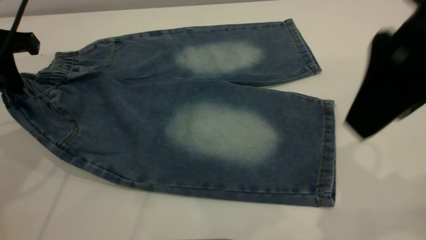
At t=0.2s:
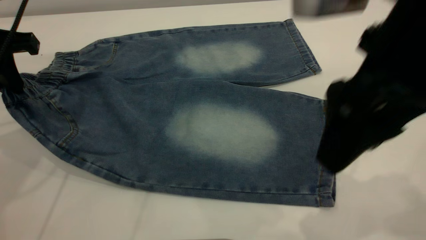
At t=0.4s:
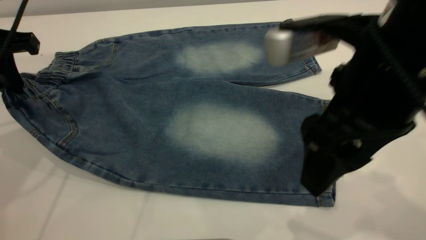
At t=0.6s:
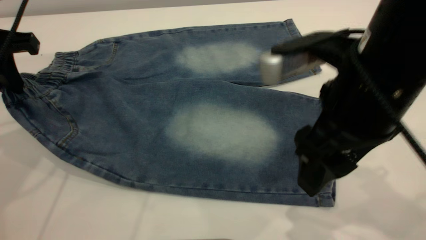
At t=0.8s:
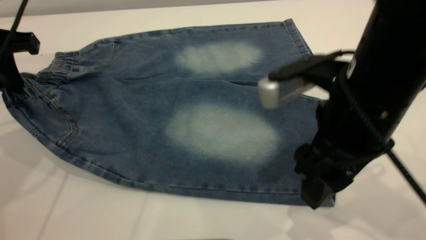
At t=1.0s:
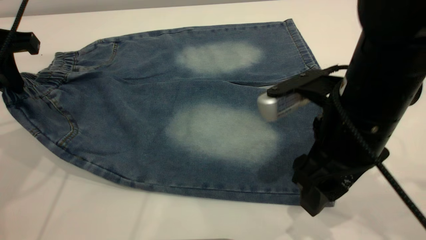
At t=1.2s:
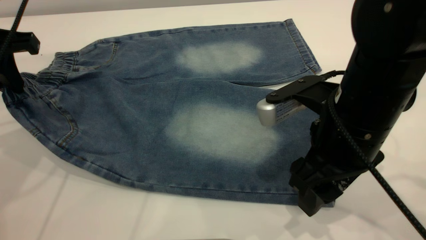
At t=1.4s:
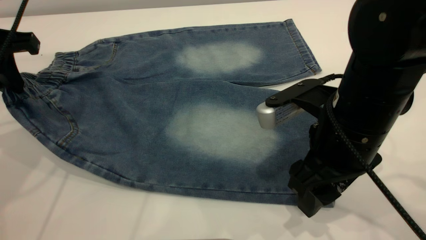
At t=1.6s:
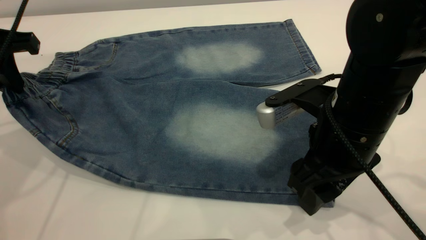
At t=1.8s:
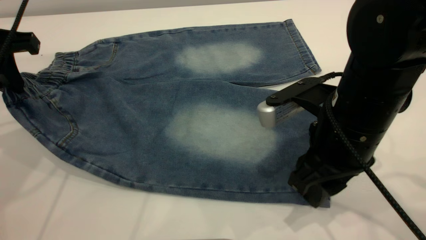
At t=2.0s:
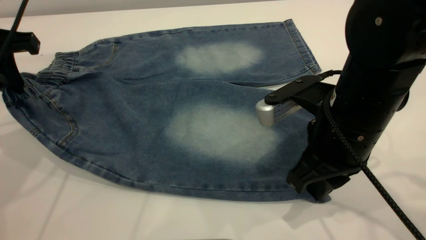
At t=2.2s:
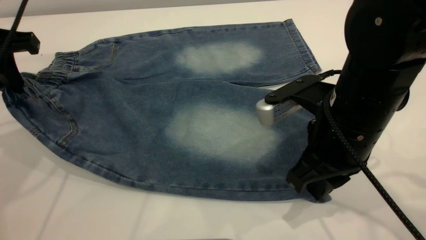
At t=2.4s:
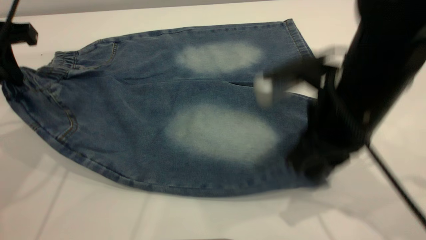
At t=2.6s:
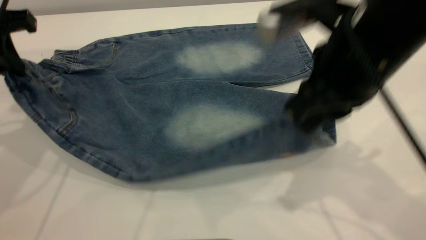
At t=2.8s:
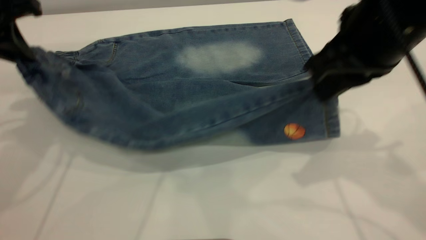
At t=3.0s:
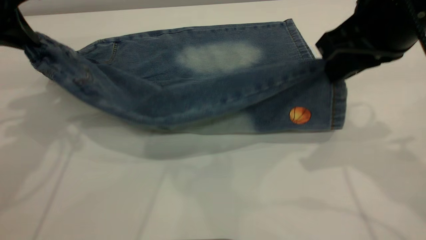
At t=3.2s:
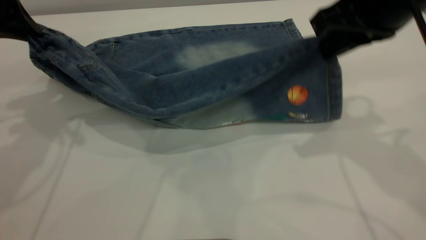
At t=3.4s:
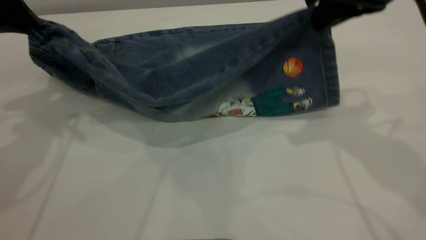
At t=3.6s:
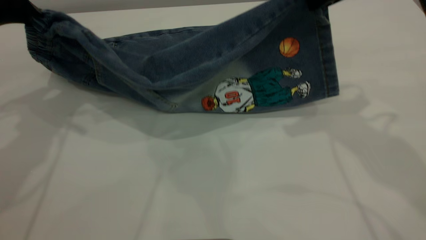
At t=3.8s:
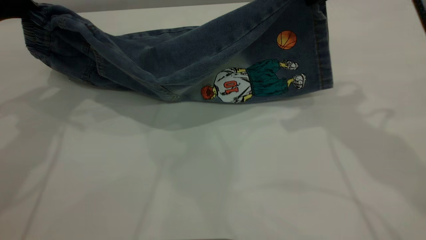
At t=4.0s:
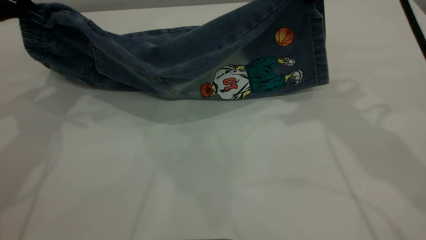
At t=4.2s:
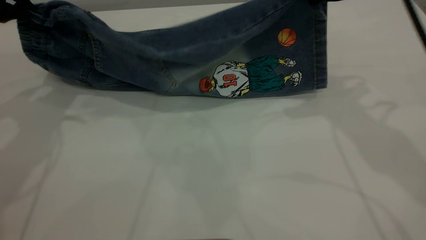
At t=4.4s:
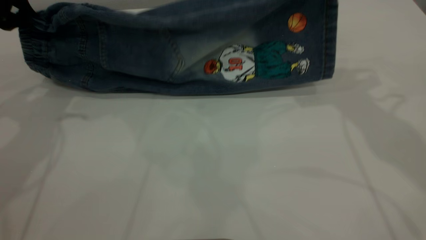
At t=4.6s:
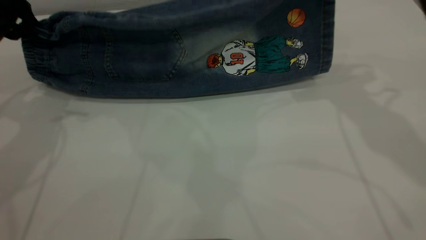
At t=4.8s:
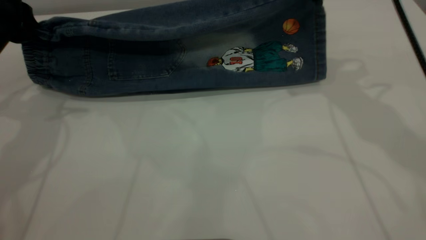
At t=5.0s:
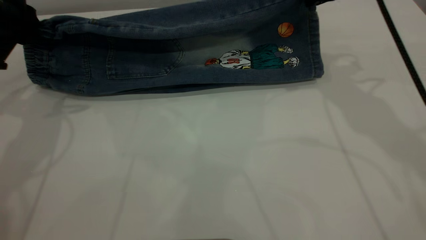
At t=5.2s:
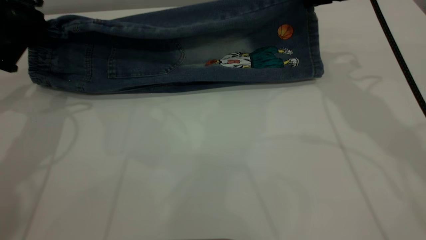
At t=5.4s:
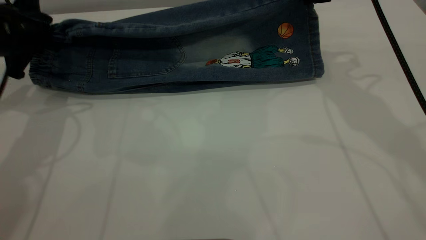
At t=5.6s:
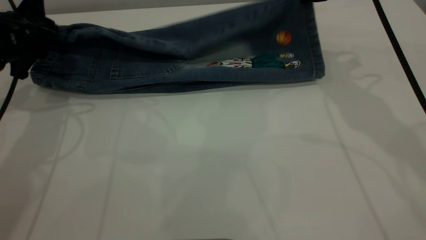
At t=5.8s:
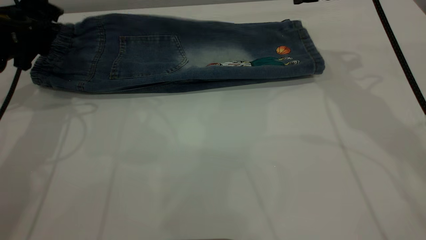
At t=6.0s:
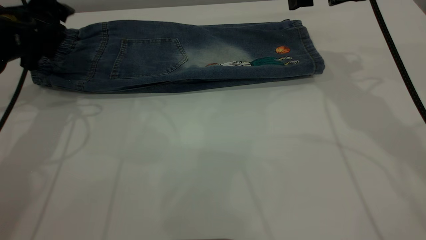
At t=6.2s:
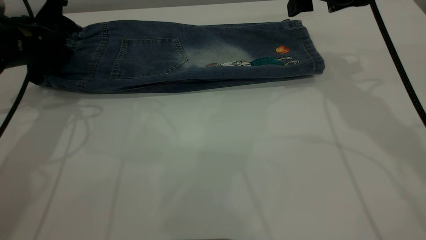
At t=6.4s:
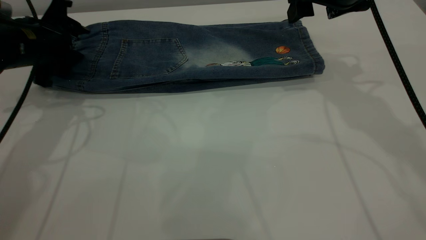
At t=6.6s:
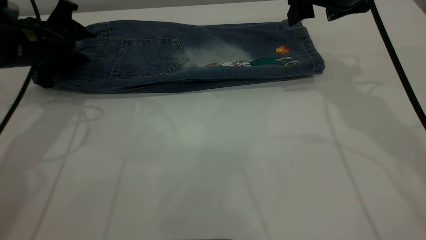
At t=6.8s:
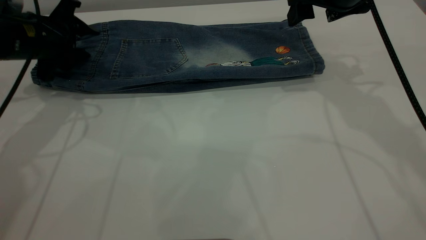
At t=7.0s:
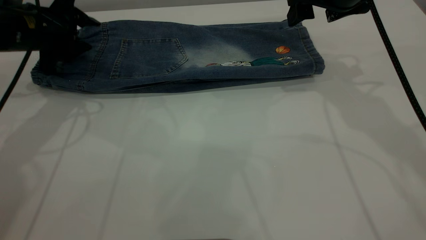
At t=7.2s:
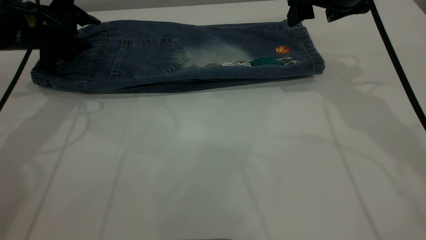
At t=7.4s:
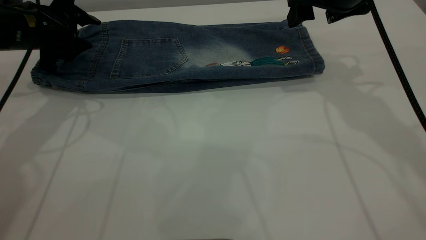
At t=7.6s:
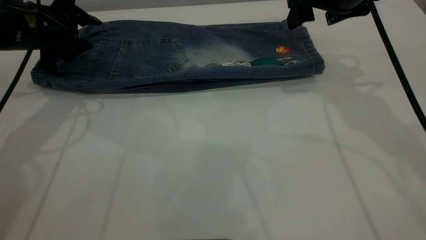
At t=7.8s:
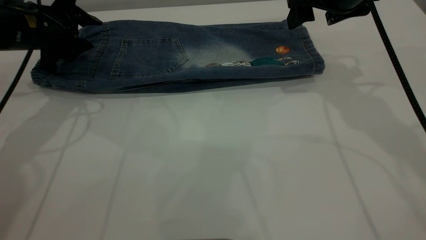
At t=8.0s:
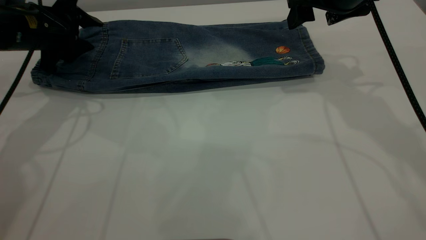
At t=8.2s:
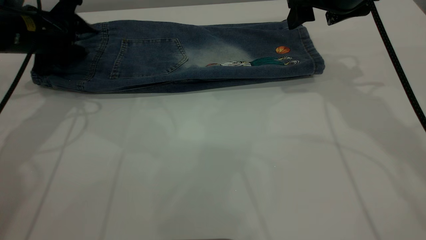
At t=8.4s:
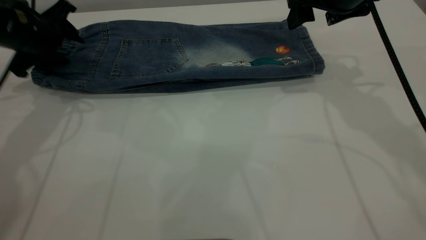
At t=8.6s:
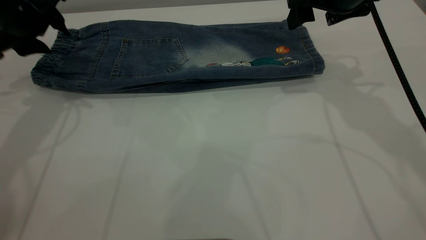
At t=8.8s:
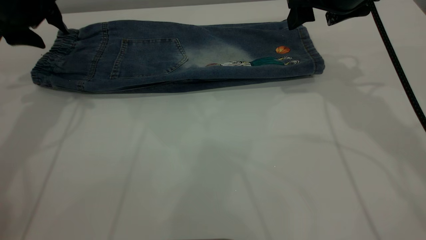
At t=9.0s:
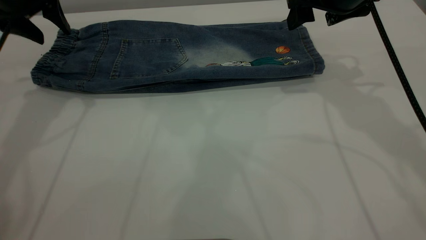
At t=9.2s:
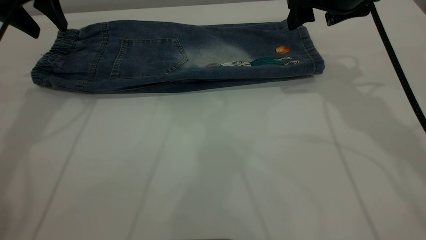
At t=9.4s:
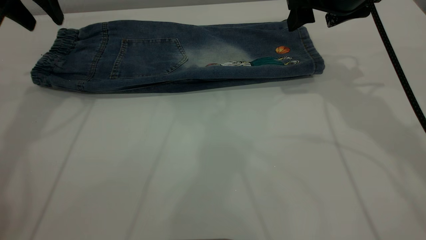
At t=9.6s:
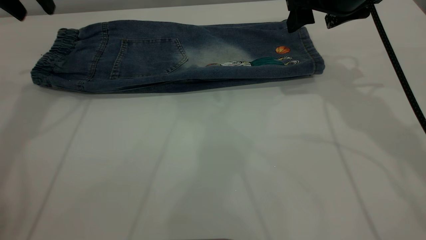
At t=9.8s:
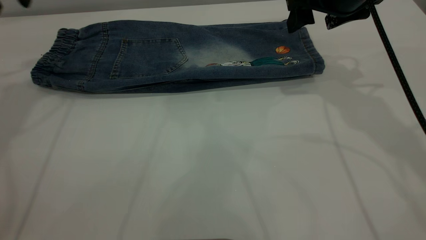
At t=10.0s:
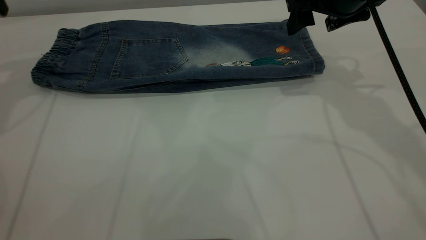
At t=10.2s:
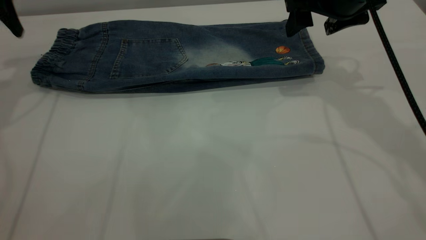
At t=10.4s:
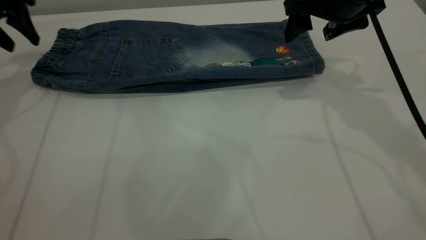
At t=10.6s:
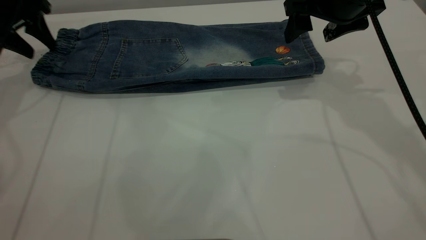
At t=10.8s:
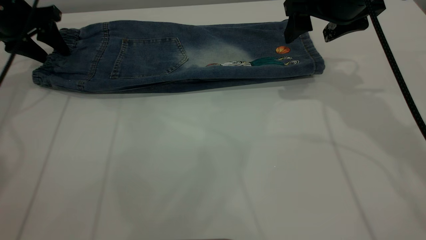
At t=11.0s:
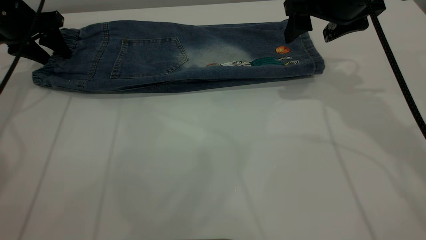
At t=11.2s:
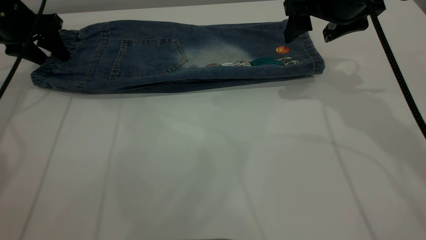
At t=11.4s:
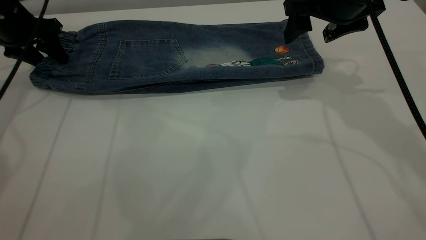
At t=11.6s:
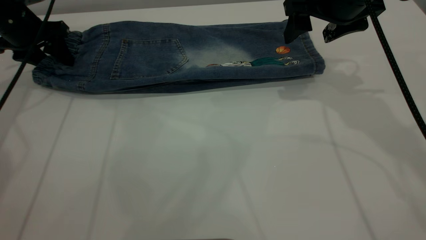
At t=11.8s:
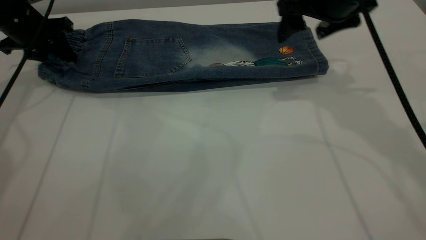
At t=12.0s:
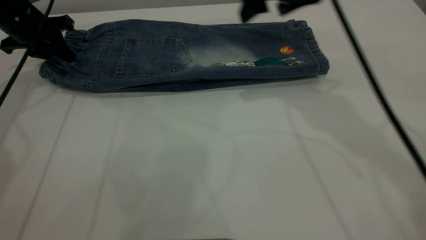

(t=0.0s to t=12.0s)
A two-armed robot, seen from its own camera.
Step, t=0.0s - t=8.4s: Fold the bottom of the pants upward.
t=0.0s - t=1.6s: The right gripper heads downward, covering some 15 cm.
t=1.6s - t=3.0s: The right gripper heads upward and to the right, covering approximately 10 cm, and closes.
t=3.0s - t=4.4s: The right gripper heads forward, covering roughly 10 cm.
t=4.4s - t=6.0s: The left gripper shifts some 10 cm downward, and opens its fingers; the right gripper shifts about 5 cm downward, and opens its fingers.
t=6.0s - t=7.6s: The grippers move only a little.
t=7.6s - t=9.0s: The left gripper shifts some 10 cm upward.
t=9.0s - t=10.4s: The left gripper shifts about 10 cm to the left, and goes upward and returns, approximately 5 cm each way.
t=10.4s - t=12.0s: The right gripper travels to the left by about 5 cm; the left gripper moves downward, approximately 5 cm, and closes.

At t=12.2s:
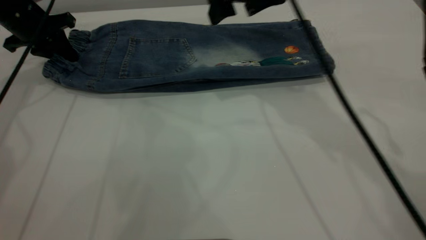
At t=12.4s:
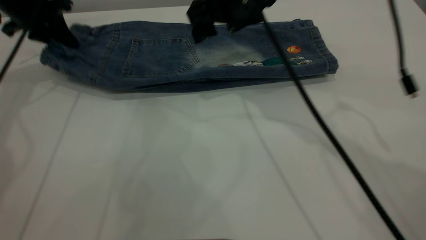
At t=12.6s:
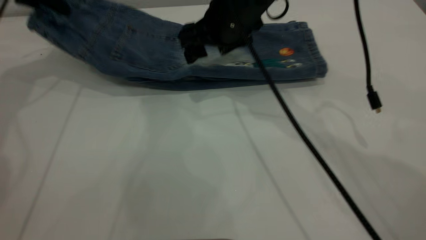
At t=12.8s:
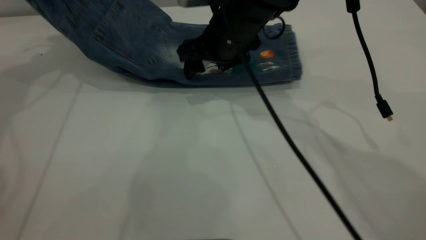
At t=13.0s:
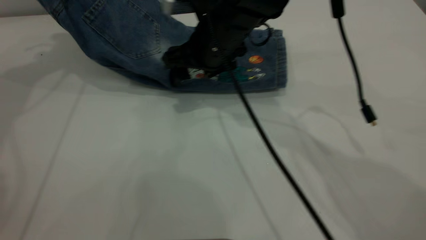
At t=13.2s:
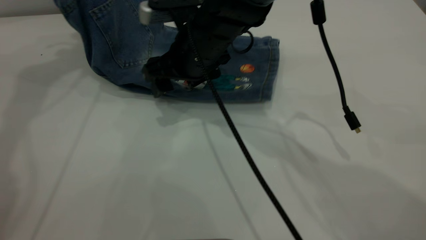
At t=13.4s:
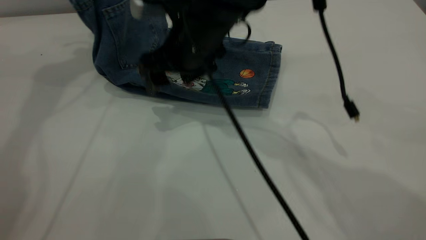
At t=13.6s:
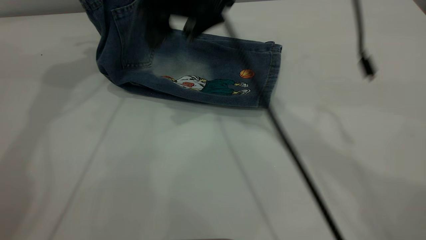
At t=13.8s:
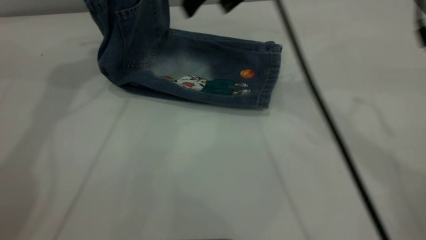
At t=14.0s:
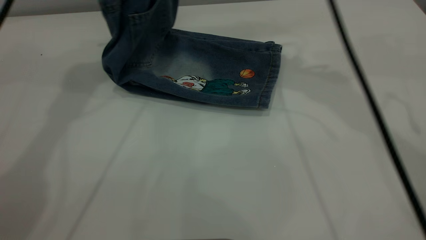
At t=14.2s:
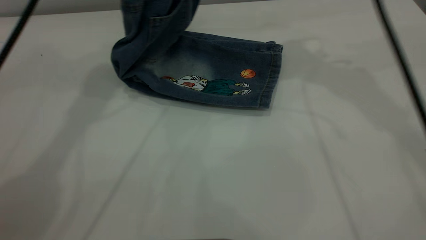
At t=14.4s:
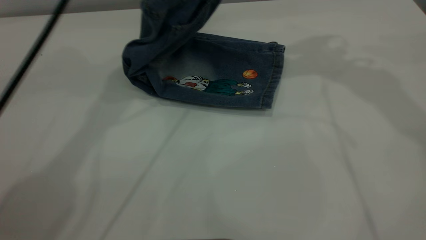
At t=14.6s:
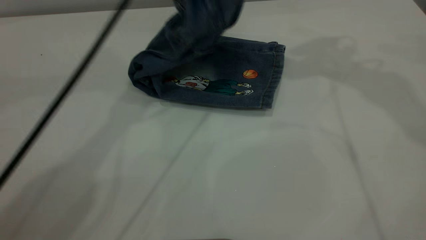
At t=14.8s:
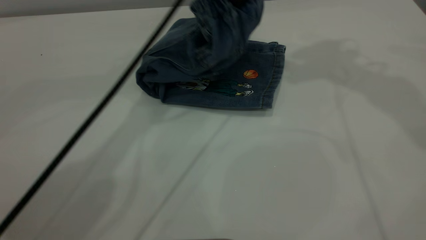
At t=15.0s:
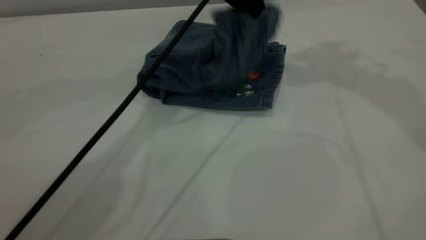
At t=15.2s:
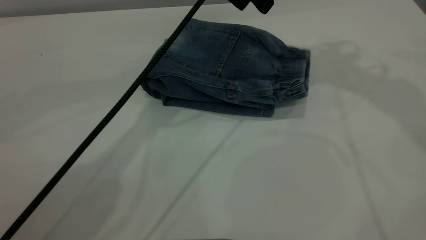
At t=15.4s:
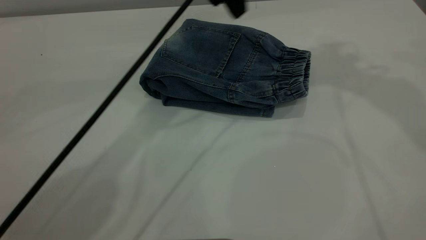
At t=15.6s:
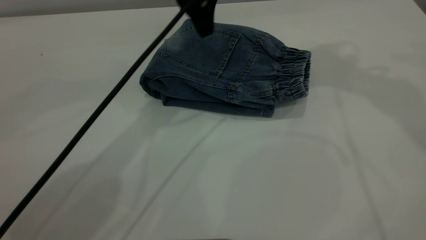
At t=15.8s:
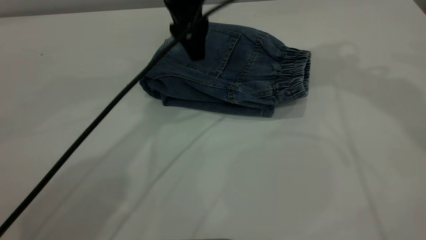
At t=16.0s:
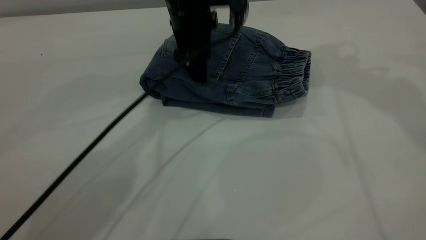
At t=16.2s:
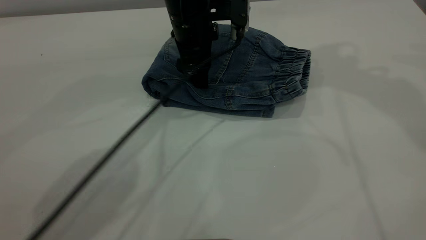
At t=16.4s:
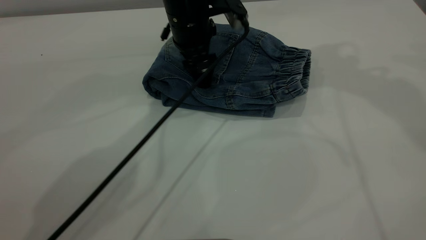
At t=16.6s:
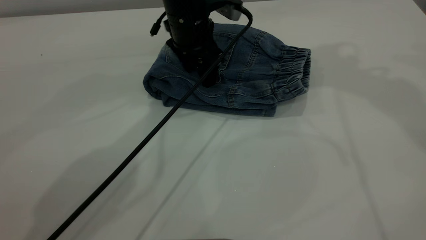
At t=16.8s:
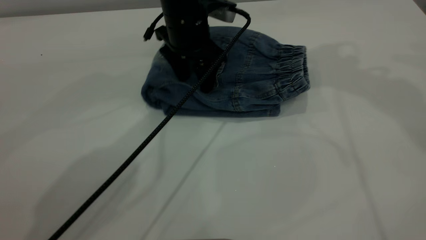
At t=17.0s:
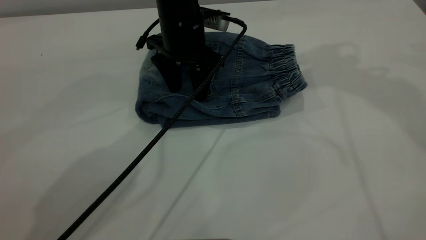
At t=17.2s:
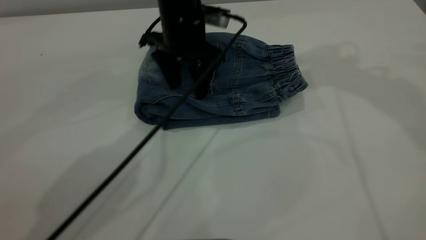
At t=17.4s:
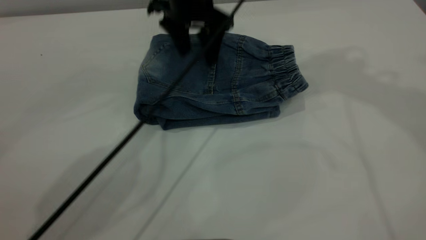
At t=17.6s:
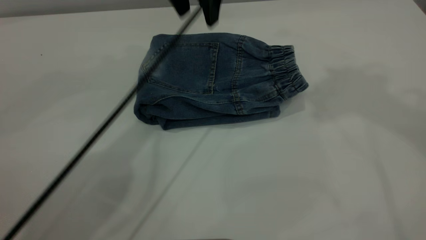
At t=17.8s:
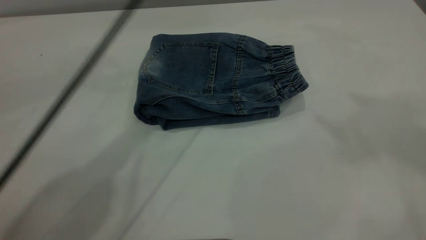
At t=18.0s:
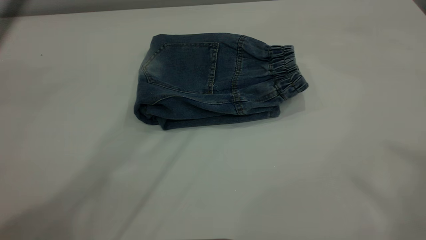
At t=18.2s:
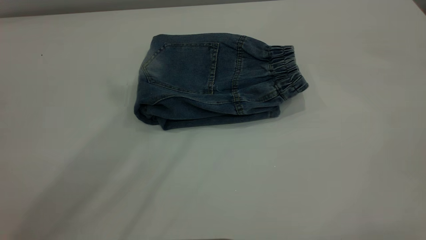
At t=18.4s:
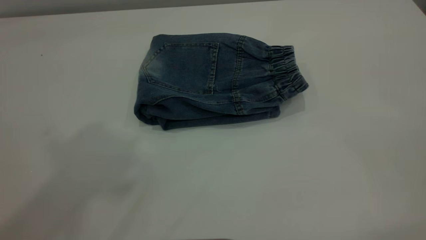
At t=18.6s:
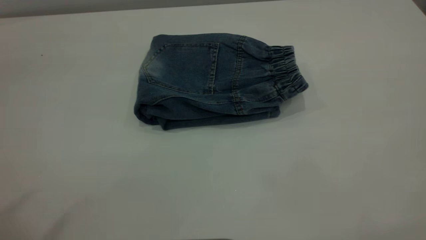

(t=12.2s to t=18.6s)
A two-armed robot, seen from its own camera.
Step, t=12.2s - t=15.4s: Fold the pants from left to right.
t=12.2s - t=13.8s: The right gripper is displaced upward by about 5 cm, while the left gripper moves upward and to the right, approximately 25 cm.
t=13.8s - t=15.4s: The left gripper travels to the right and downward by some 20 cm, and opens its fingers, while the right gripper moves upward and to the right, approximately 20 cm.
t=15.4s - t=17.0s: The left gripper heads downward, covering approximately 10 cm.
t=17.0s - t=18.6s: The right gripper moves backward, some 40 cm. The left gripper shifts roughly 60 cm upward, backward and to the left.
